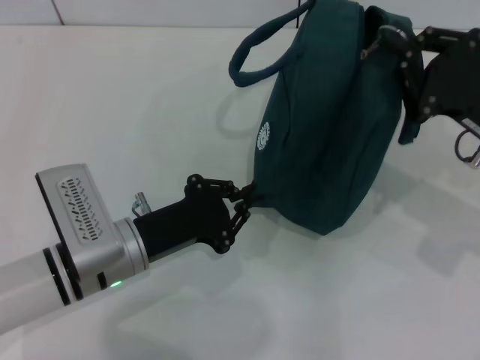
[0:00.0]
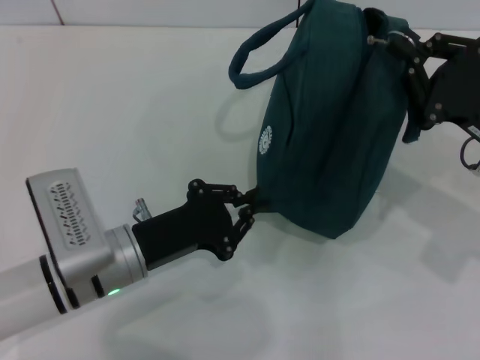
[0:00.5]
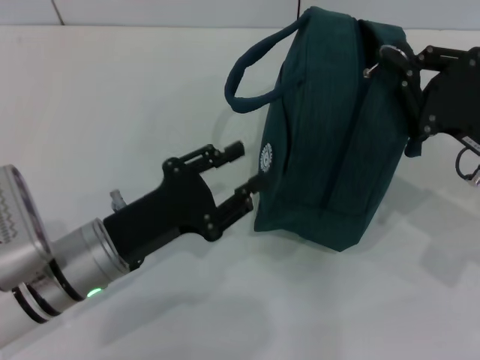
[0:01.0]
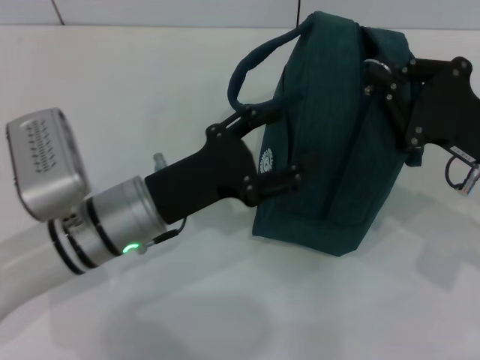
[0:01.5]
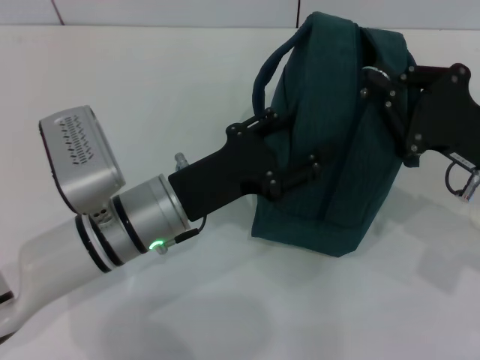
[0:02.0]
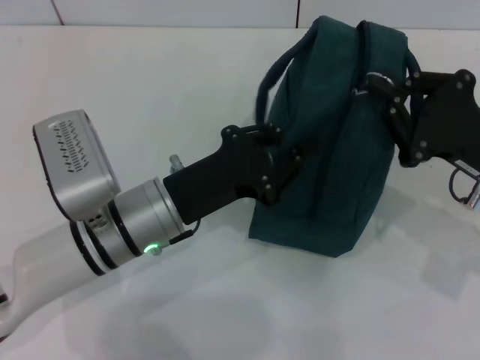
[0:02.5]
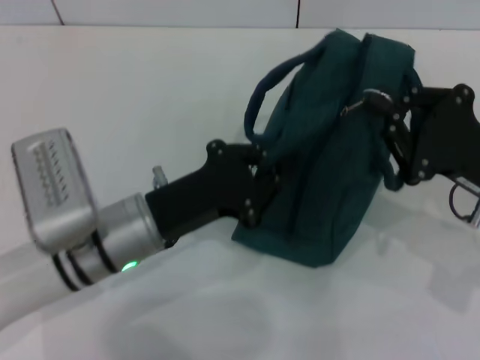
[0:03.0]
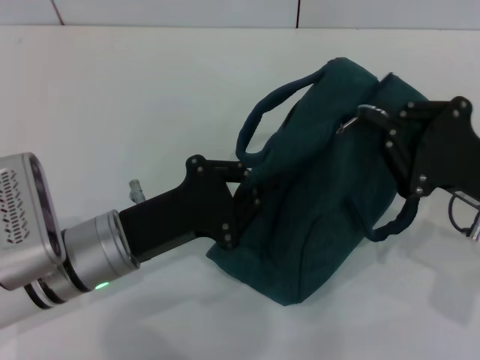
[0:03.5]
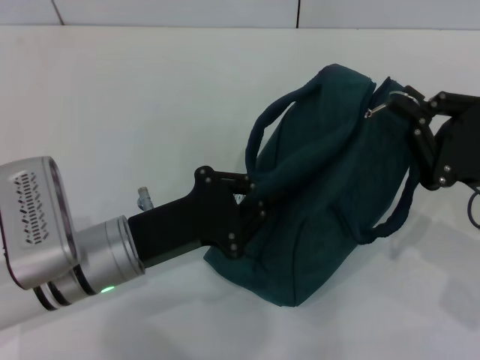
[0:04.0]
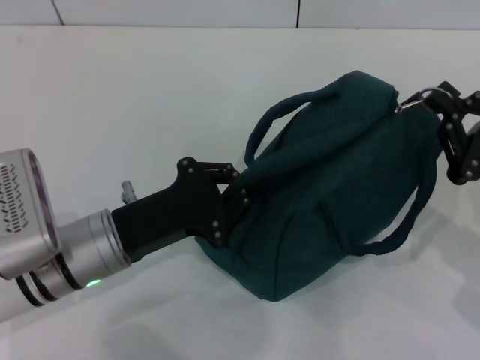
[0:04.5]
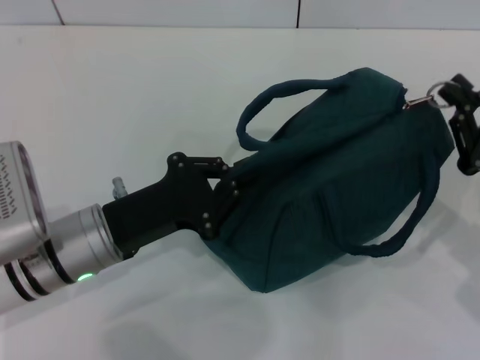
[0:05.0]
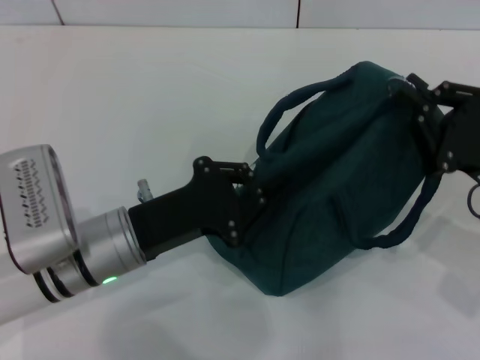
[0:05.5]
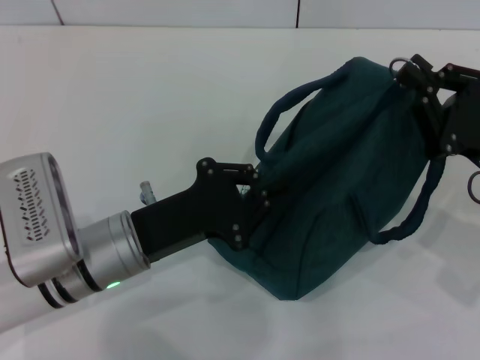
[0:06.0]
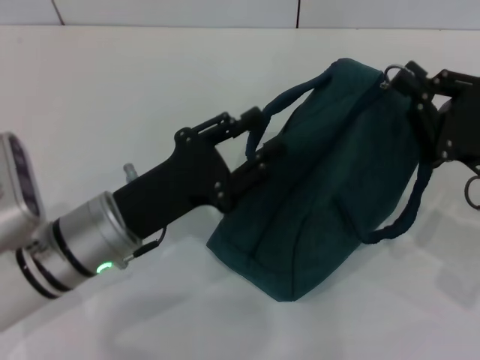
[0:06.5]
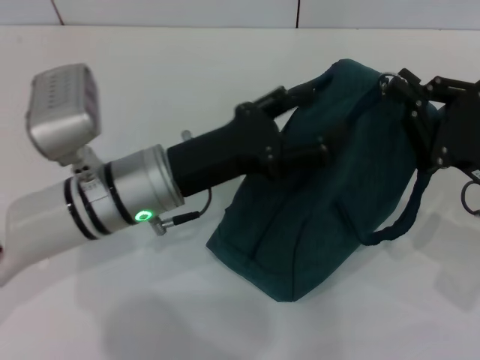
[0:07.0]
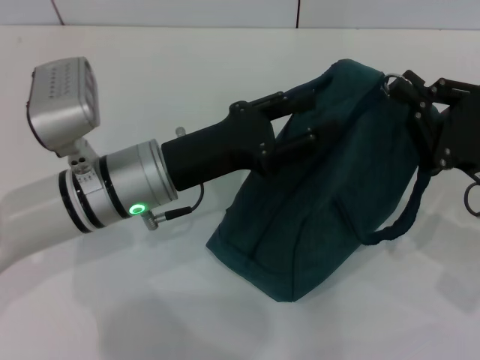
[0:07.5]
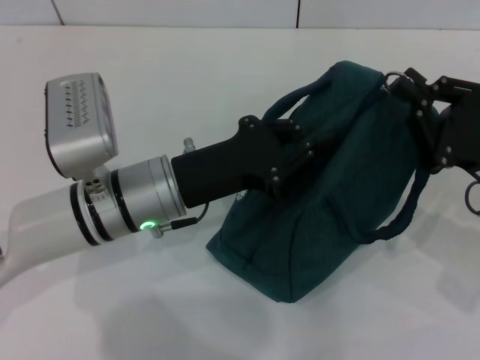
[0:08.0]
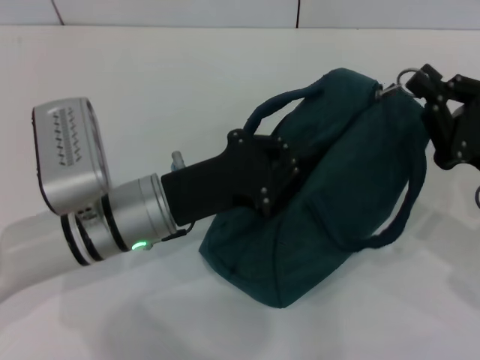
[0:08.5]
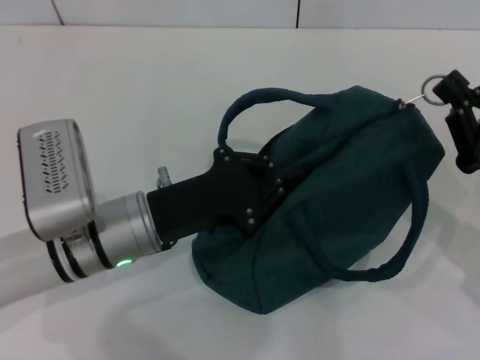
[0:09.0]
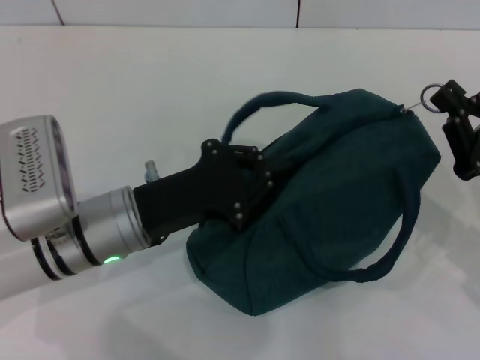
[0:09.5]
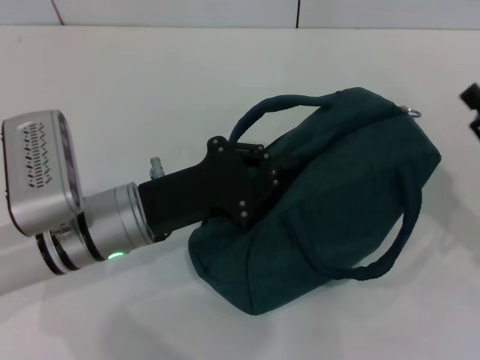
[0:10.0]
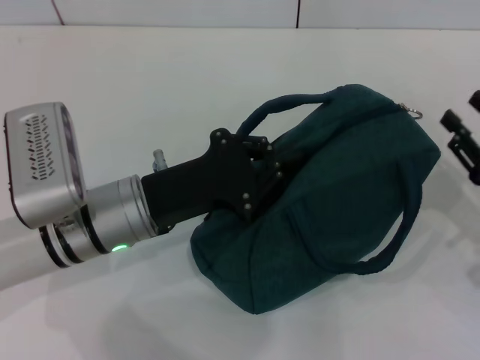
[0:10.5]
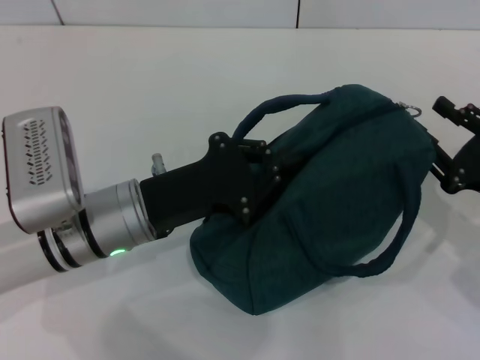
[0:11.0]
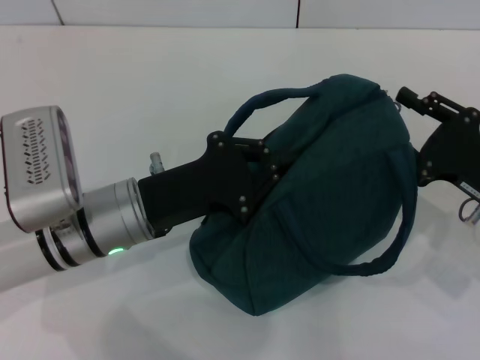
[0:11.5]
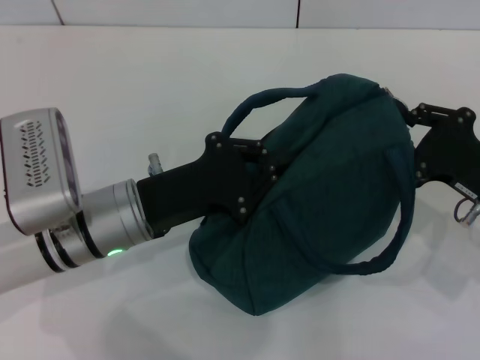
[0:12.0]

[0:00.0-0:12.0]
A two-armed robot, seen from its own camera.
0:00.0 to 0:02.0: The left gripper changes place by roughly 5 cm, and opens.
0:02.0 to 0:04.0: The left gripper moves roughly 5 cm, and closes its fingers.
0:04.0 to 0:06.0: The grippers stay close to where they were, moving slightly.
0:06.0 to 0:08.0: The left gripper ends up about 5 cm from where it was, and opens up.
0:08.0 to 0:10.0: The left gripper closes. Meanwhile the right gripper moves about 5 cm, and opens its fingers.
0:10.0 to 0:12.0: The right gripper changes place by roughly 5 cm.

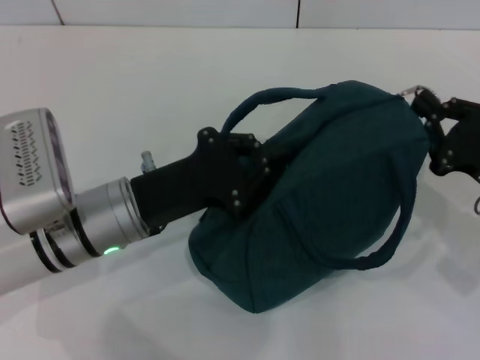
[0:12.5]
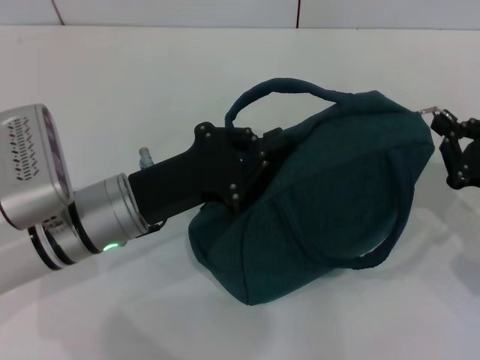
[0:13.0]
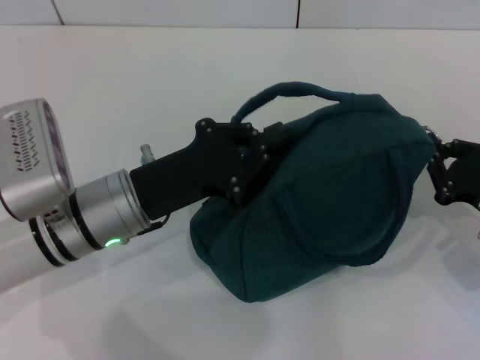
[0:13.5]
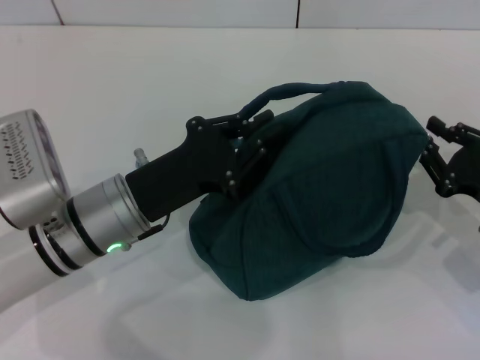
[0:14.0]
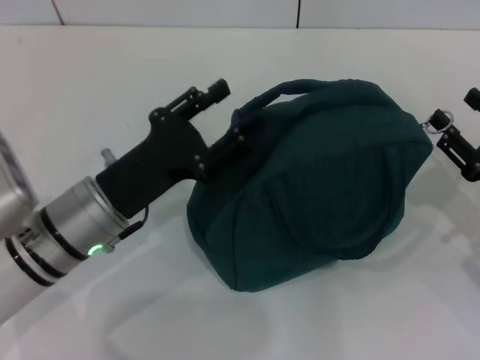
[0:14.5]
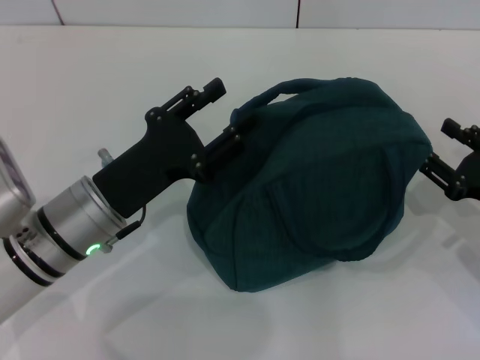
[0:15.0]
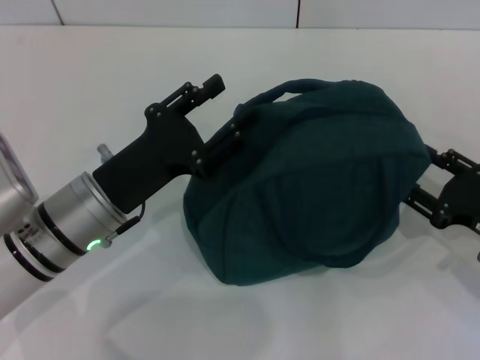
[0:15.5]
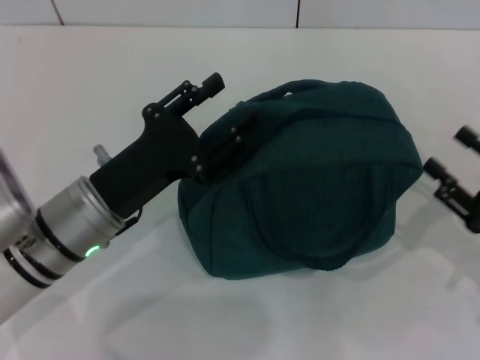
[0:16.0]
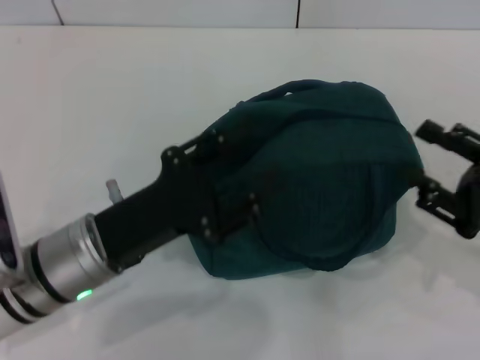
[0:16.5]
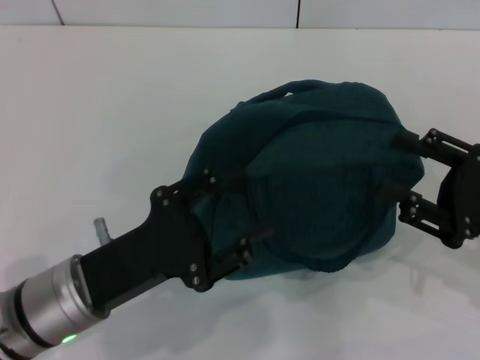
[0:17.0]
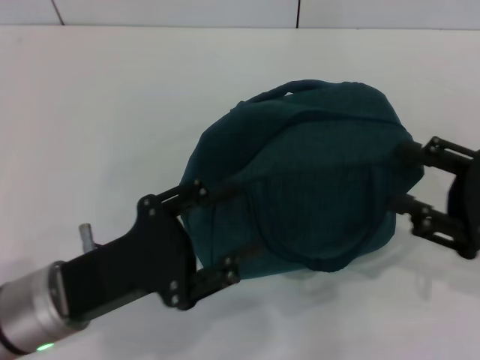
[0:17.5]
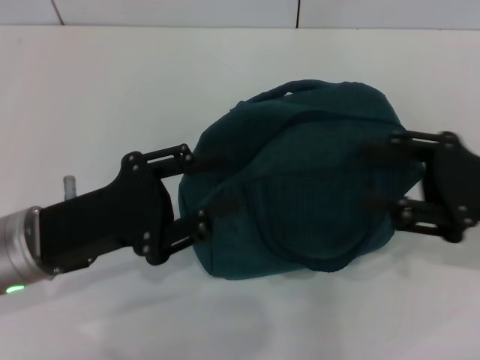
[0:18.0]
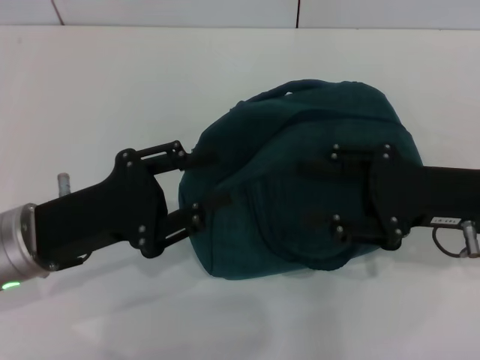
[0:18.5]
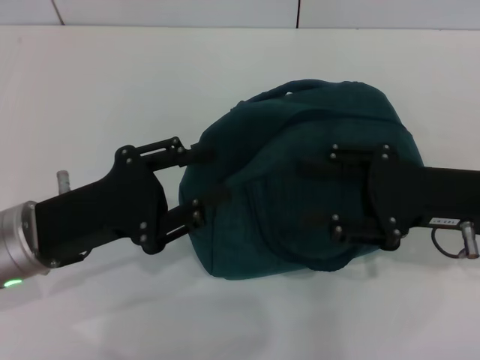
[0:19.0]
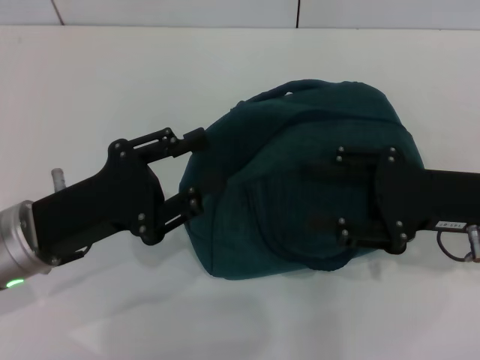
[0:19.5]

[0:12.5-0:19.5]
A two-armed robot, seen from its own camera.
Step, 0:14.5 to 0:15.5: Zip up the lunch bag with your right hand.
0:12.5 to 0:14.5: The left gripper opens up. The right gripper opens up.
0:14.5 to 0:16.0: The grippers make only small movements.
0:16.0 to 0:17.5: The left gripper heads backward, covering some 5 cm, while the right gripper shifts by some 5 cm.
0:17.5 to 0:19.5: The left gripper shifts by some 5 cm. Meanwhile the right gripper shifts roughly 5 cm to the left.

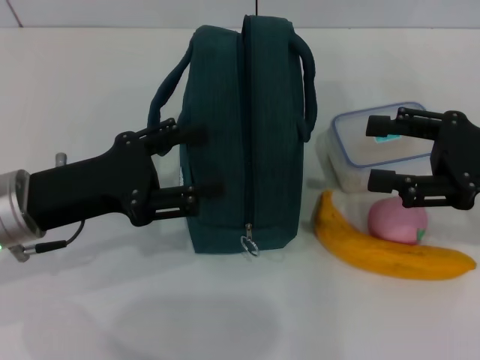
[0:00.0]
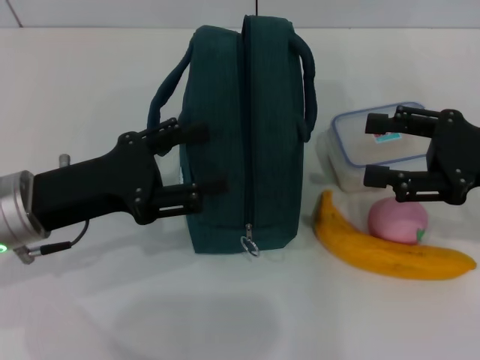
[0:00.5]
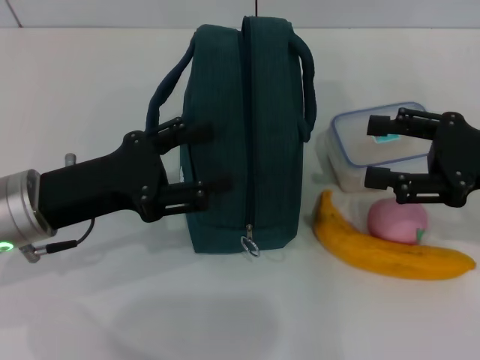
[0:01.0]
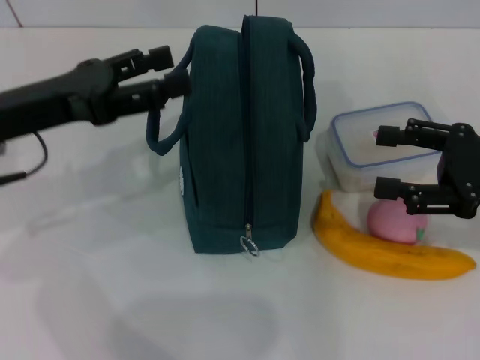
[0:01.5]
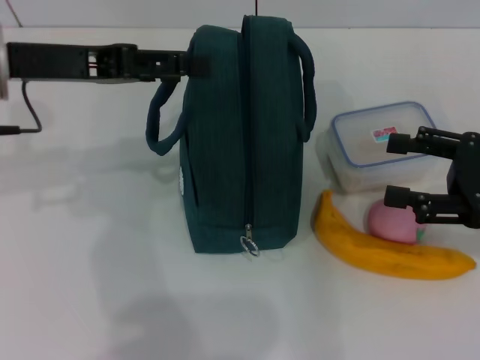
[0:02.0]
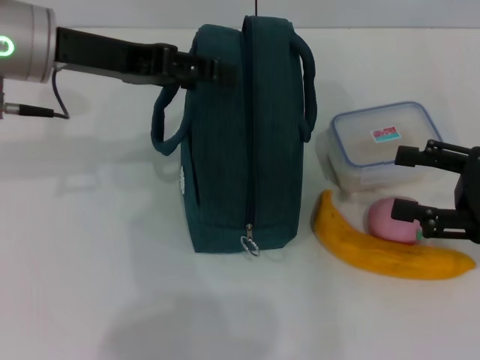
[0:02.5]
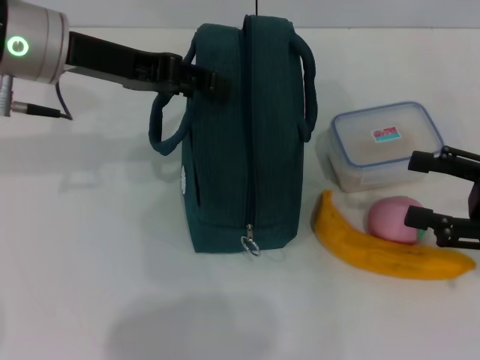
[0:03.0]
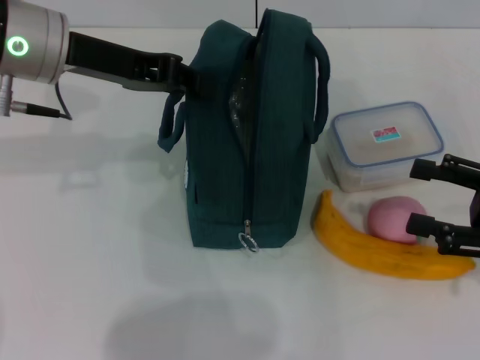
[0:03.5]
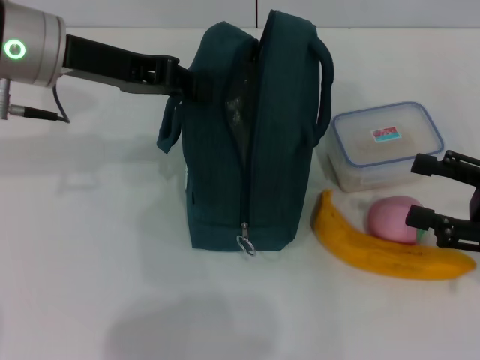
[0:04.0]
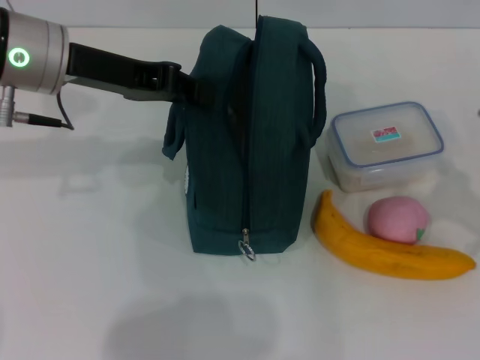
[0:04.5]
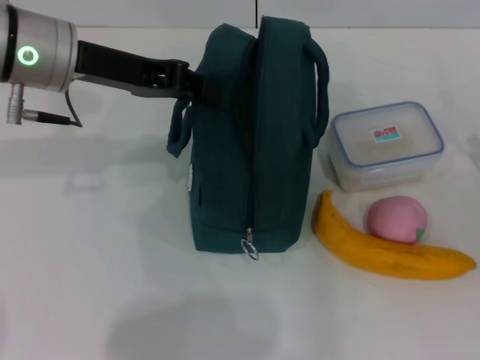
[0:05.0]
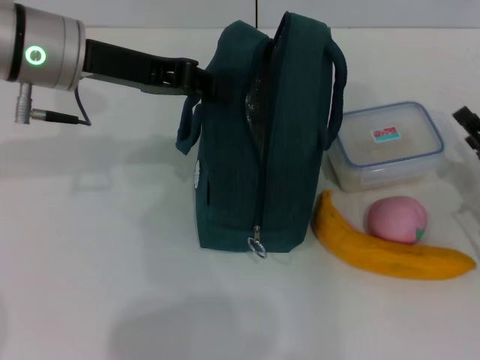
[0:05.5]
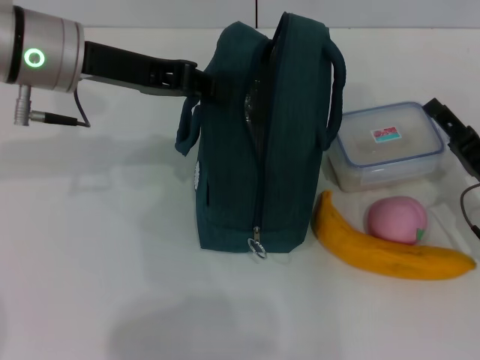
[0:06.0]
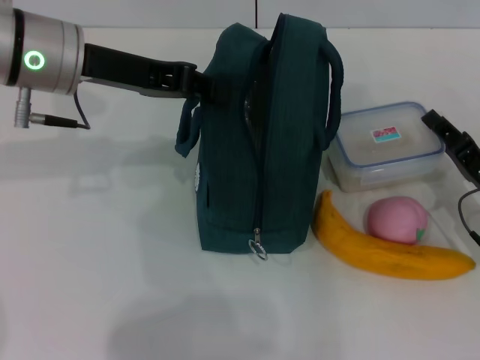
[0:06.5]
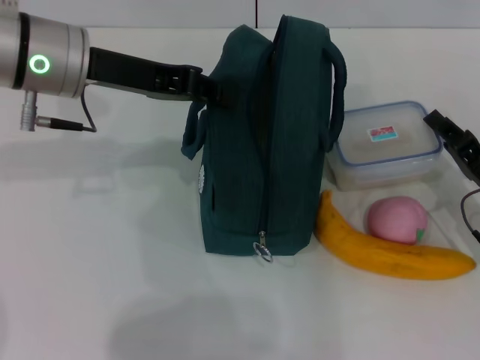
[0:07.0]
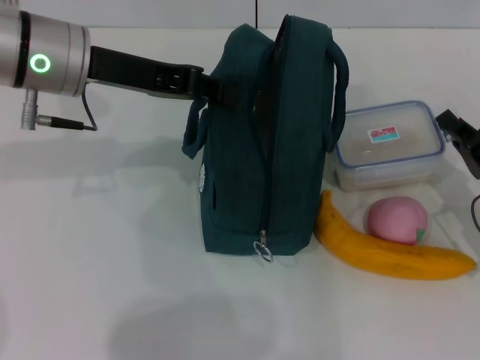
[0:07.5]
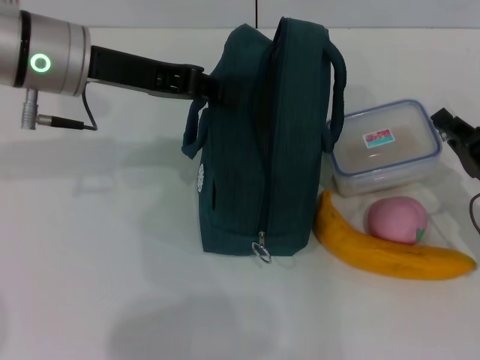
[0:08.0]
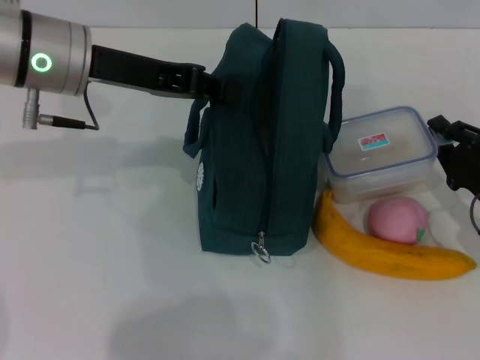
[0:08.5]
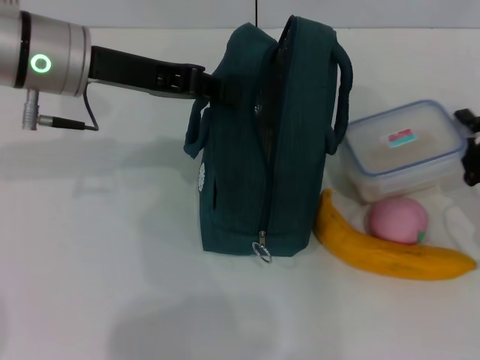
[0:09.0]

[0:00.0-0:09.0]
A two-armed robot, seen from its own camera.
Step, 0:00.0 to 0:04.0: Hold the lunch bag with your left hand.
Step, 0:04.5 to 0:08.5: Pick up the lunch box with your right hand.
0:00.0 to 0:02.0: The left gripper shifts approximately 15 cm upward and forward.
0:02.0 to 0:04.5: The right gripper changes place by approximately 5 cm, while the left gripper closes its fingers.
0:04.5 to 0:07.0: The right gripper shifts approximately 10 cm downward and to the left, and closes.
